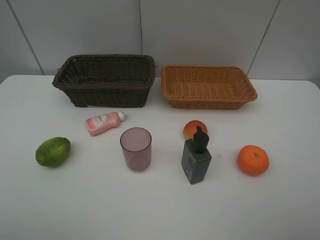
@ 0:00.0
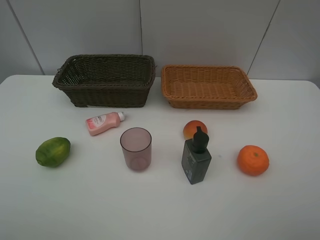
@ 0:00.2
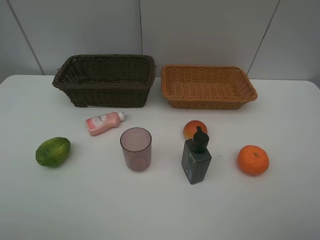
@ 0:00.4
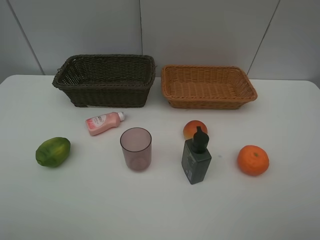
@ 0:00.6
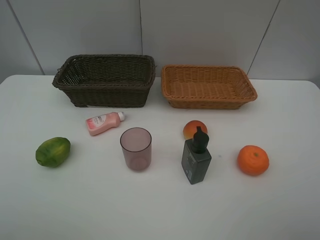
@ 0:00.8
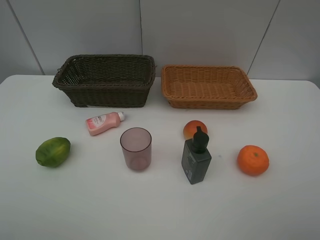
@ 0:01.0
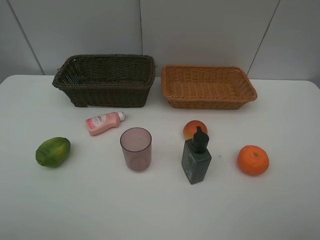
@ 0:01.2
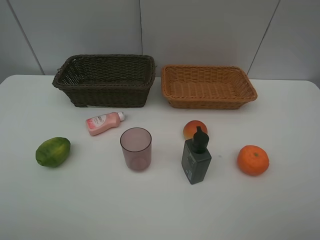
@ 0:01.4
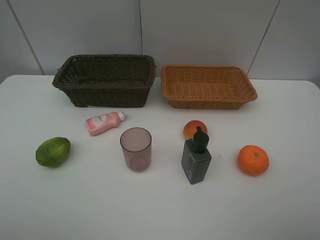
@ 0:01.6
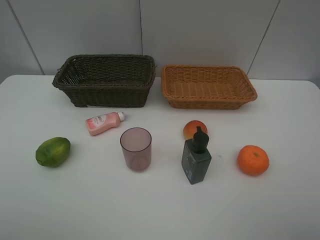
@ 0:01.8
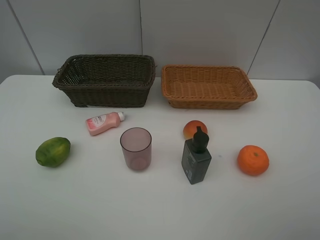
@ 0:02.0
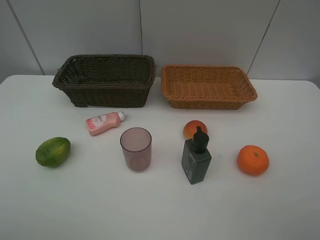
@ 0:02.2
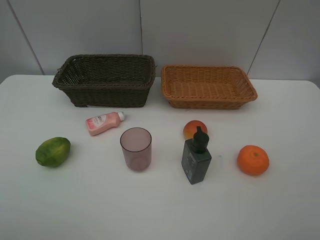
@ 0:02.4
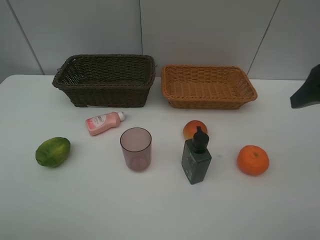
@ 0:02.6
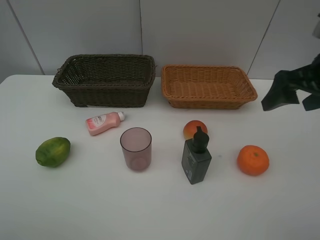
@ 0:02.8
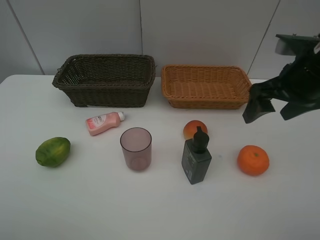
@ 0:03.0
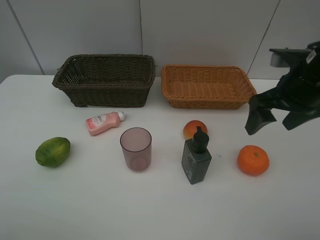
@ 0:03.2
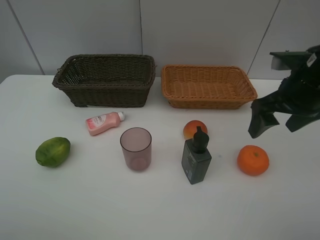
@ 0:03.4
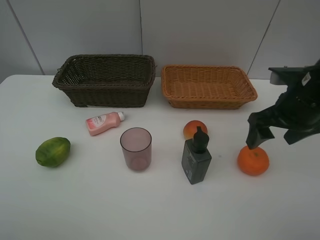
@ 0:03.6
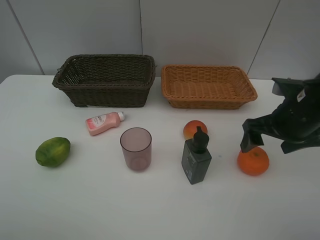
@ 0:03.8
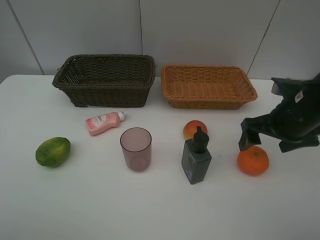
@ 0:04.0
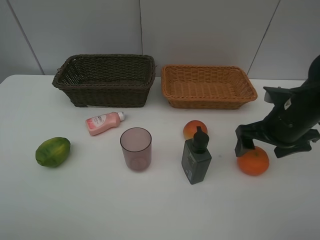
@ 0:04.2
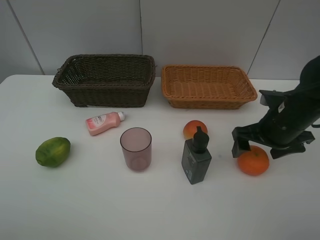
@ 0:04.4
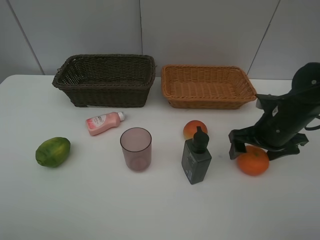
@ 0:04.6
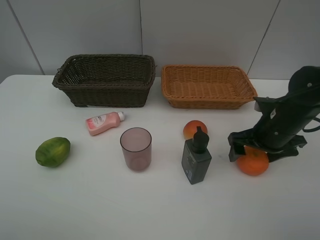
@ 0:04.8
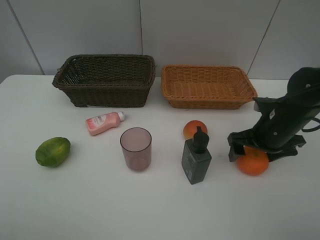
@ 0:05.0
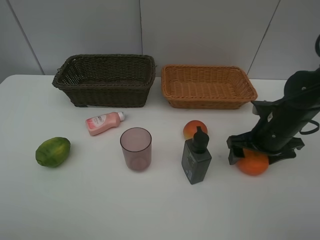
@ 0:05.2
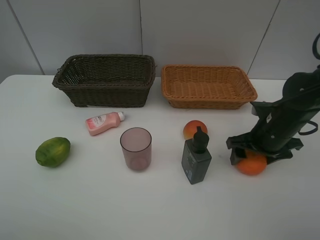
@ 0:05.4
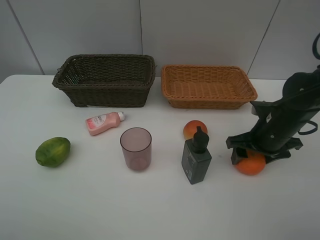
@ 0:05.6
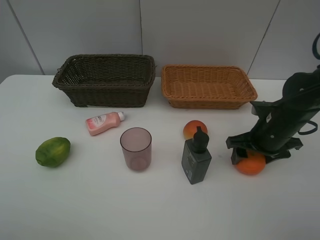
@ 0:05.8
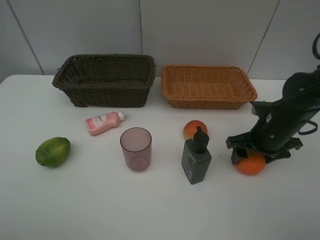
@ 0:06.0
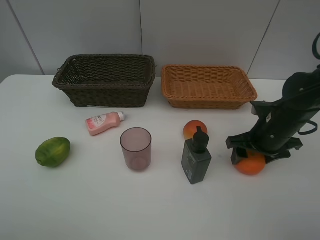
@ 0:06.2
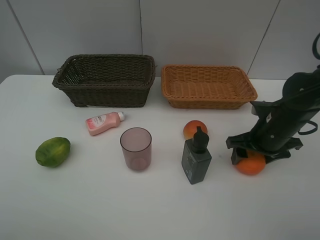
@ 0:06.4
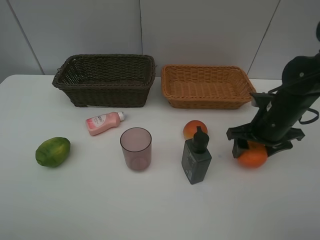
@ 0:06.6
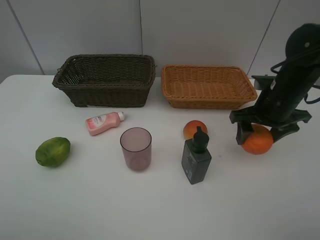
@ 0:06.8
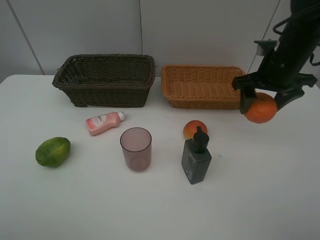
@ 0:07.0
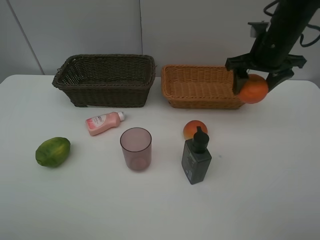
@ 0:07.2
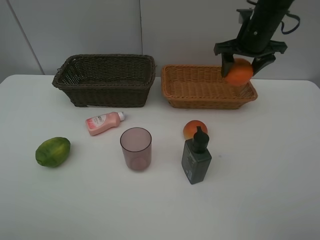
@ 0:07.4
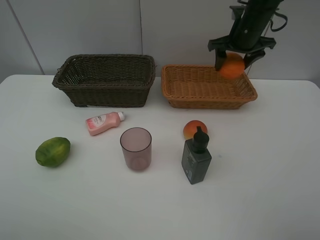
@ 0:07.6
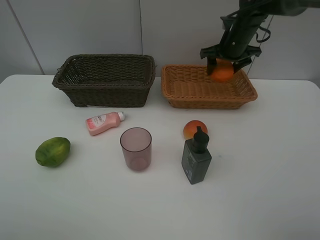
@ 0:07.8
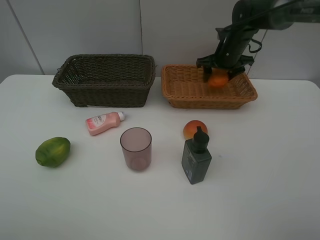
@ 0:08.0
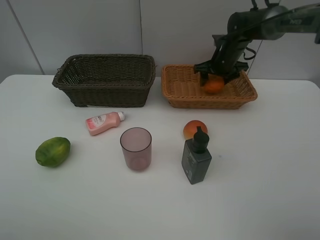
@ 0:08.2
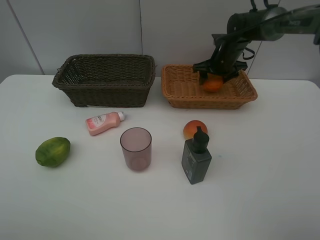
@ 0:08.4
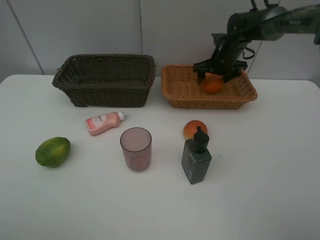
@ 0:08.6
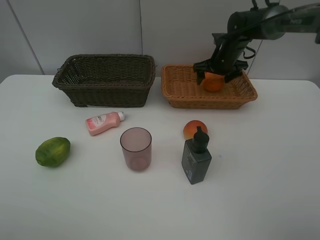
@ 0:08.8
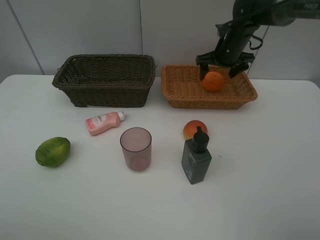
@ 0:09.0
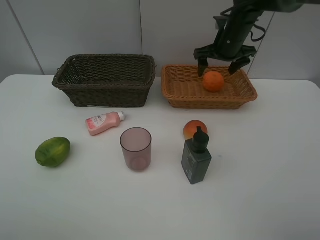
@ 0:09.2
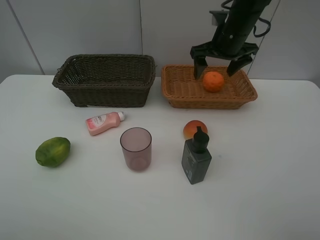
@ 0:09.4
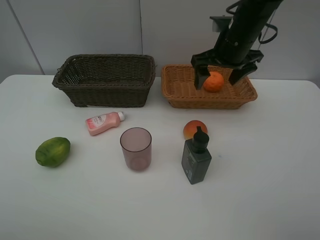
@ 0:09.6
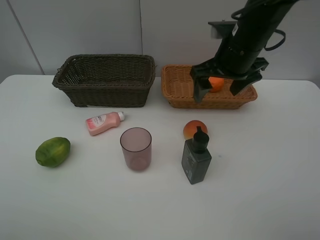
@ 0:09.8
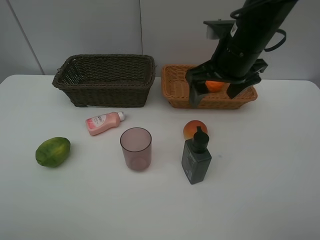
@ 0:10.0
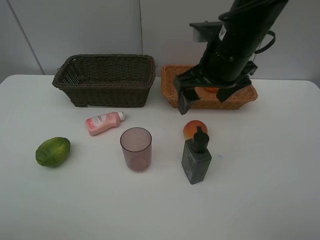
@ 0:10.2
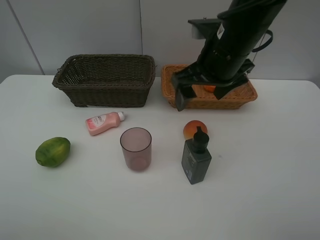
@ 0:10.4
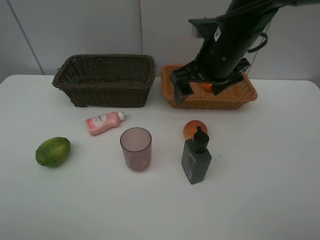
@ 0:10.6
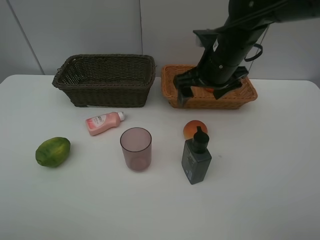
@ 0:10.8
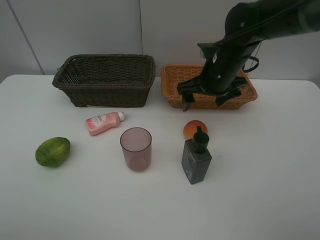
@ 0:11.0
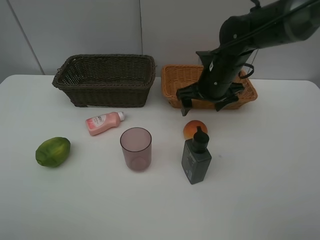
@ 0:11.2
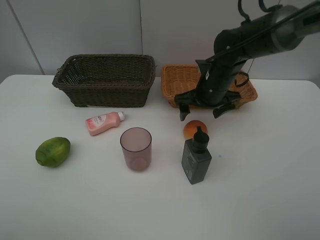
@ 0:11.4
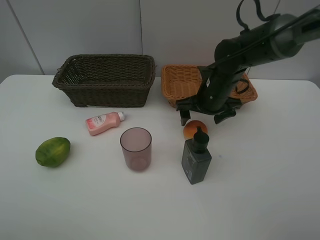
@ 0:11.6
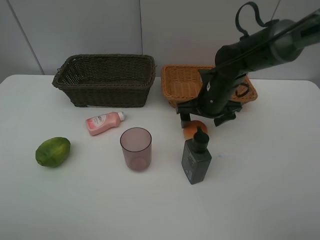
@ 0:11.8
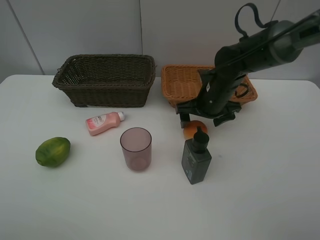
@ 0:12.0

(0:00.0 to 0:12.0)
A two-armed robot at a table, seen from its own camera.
Task of the whole recording: place multiple objects separately in different baskets.
0:00.0 - 0:01.6: The two grippers keep their place.
0:01.6 - 0:03.0: The right gripper travels forward by roughly 25 cm.
0:03.0 - 0:04.4: The right gripper moves downward, approximately 10 cm.
0:04.4 - 0:06.0: The right gripper closes up.
0:06.0 - 0:07.6: The right gripper moves forward and upward, about 25 cm.
0:07.6 - 0:09.0: The right gripper opens.
0:09.0 - 0:10.4: The right gripper moves backward and to the left, approximately 20 cm.
0:10.4 - 0:12.0: The right gripper goes some 15 cm downward and forward.

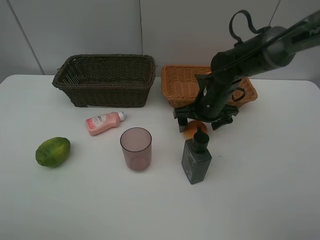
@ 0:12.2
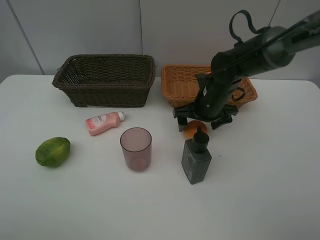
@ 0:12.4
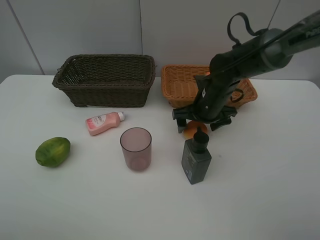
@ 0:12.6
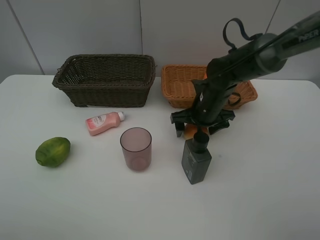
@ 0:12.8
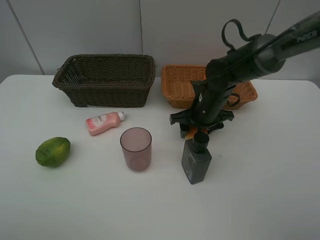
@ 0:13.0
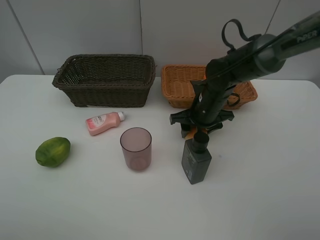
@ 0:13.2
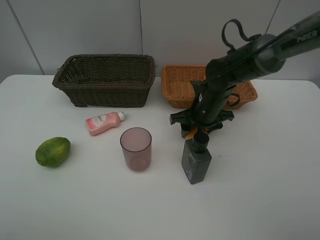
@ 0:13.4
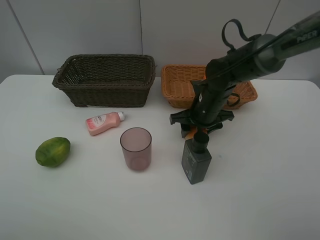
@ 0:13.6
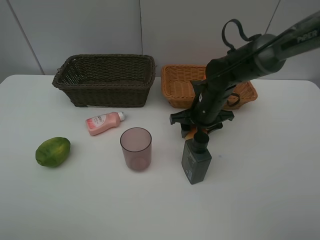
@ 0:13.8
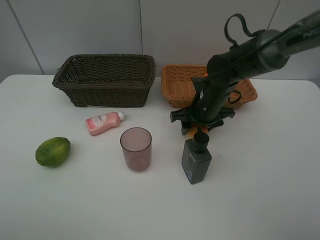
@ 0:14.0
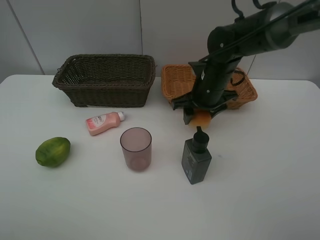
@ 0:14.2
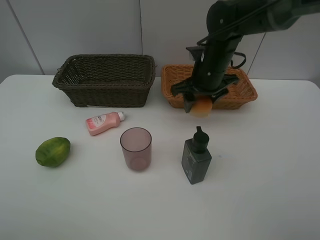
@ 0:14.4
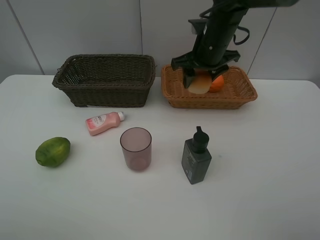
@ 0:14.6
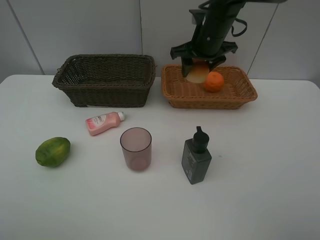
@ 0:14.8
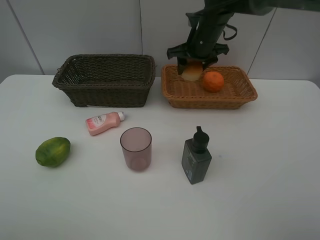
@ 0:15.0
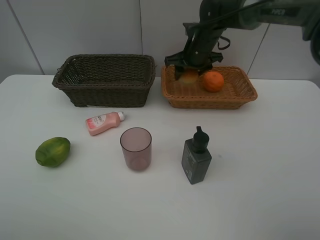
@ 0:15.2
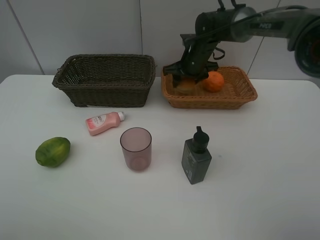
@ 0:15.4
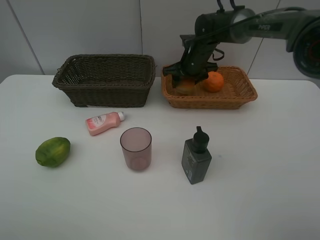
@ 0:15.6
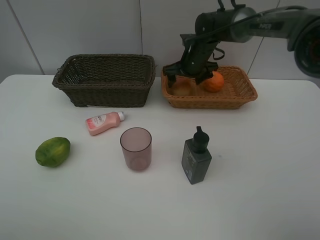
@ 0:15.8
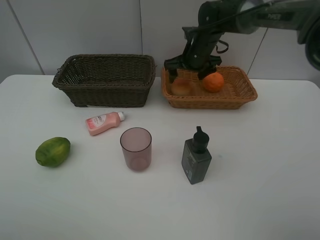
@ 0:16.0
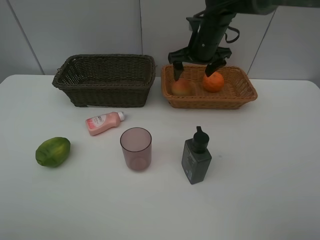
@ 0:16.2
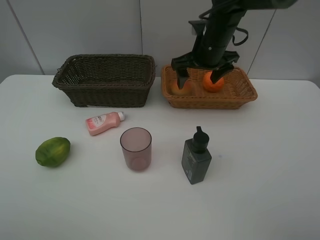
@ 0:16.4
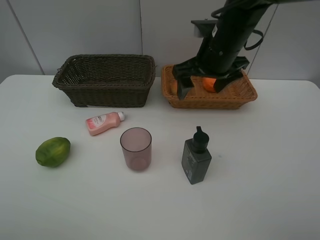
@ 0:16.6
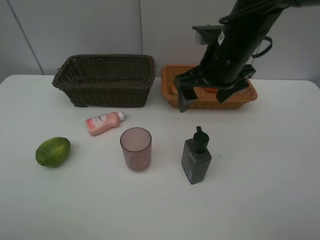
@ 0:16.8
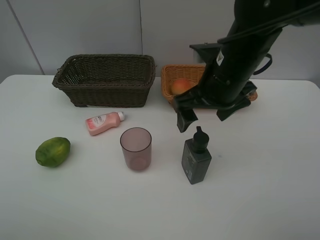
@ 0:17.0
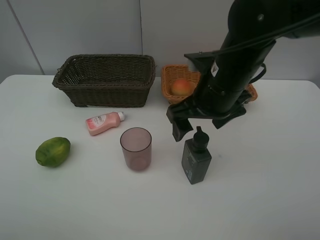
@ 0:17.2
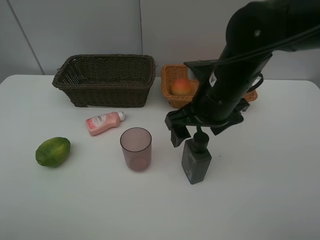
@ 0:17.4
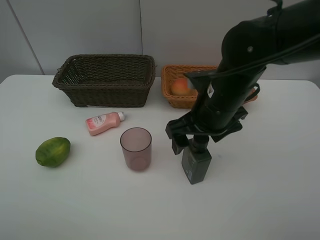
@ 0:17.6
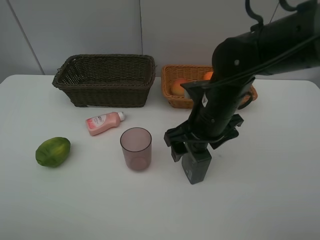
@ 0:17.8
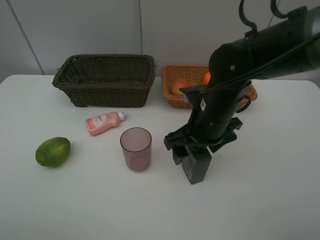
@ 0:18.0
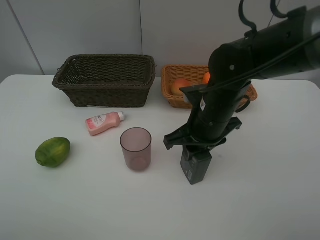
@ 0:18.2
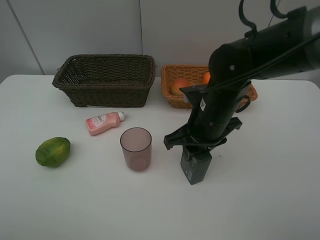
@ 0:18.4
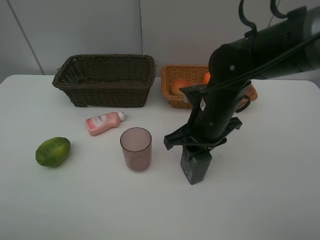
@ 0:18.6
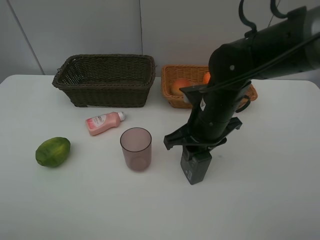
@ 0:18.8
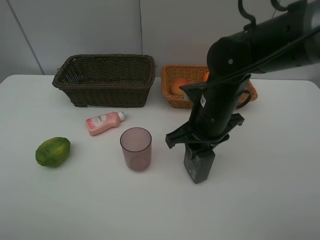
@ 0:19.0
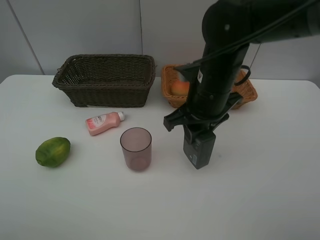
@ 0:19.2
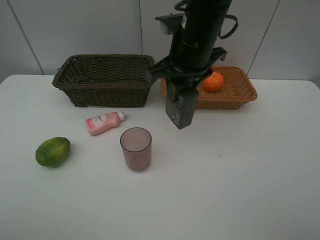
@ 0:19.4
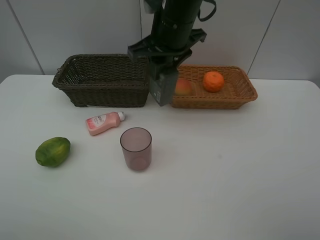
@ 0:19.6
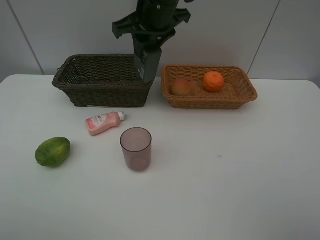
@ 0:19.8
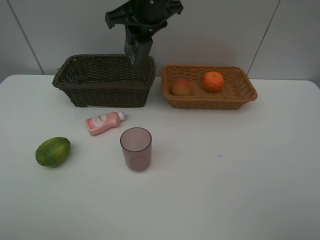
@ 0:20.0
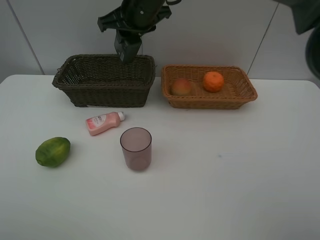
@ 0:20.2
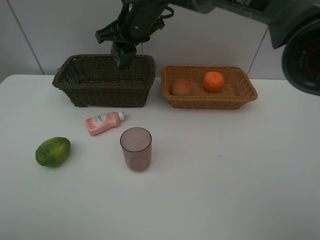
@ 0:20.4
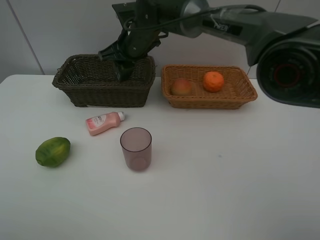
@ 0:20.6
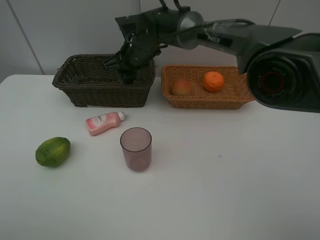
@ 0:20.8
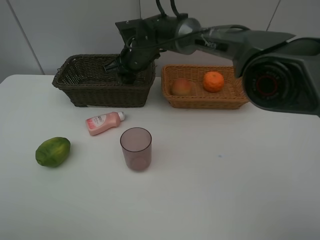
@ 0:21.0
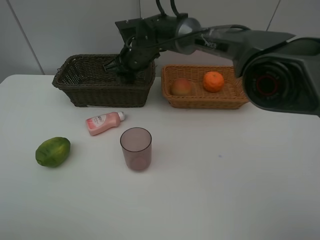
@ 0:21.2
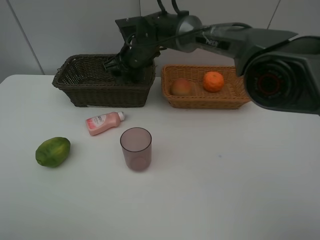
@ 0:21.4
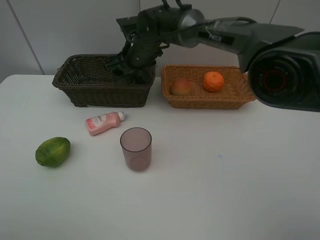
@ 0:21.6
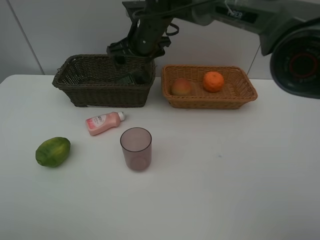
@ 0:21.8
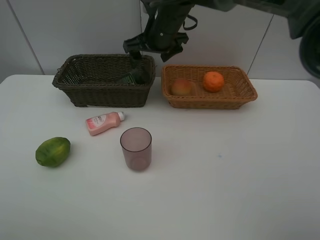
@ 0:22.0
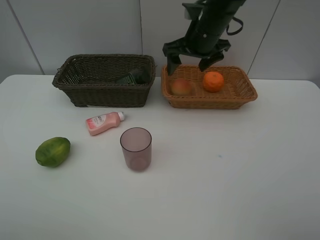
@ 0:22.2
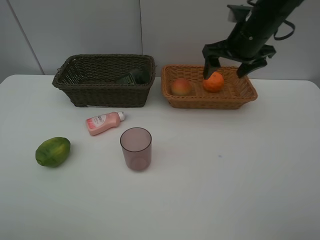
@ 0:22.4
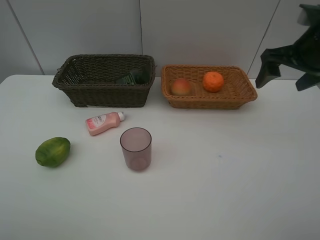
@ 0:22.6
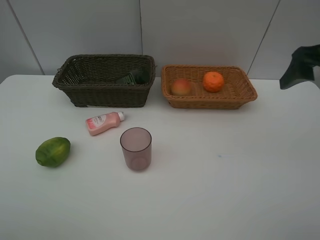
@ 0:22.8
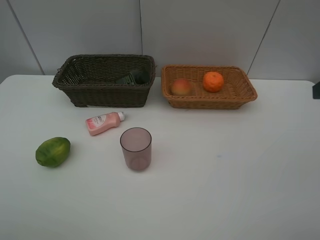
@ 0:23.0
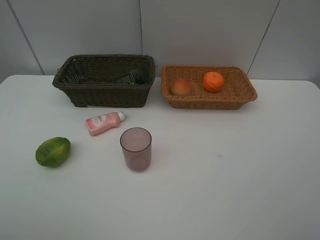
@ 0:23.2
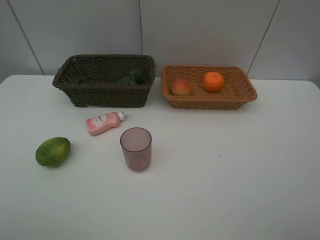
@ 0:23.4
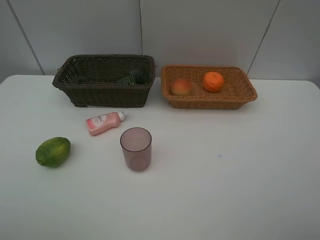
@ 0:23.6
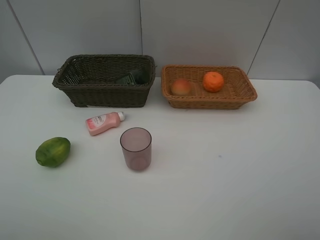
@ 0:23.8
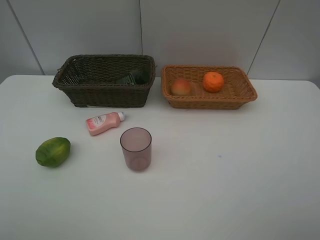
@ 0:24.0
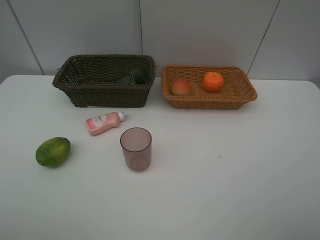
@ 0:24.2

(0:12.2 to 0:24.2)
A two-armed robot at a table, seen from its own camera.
Task of the whole recording: place multiple objects separately in different baskets.
0:12.2 - 0:13.8: The right gripper closes its fingers.
0:13.8 - 0:15.2: The right gripper travels forward and upward by roughly 15 cm.
0:15.2 - 0:16.6: The right gripper shifts approximately 15 cm backward and upward, and opens up.
0:16.6 - 0:18.2: The right gripper heads downward and backward, covering roughly 10 cm, and closes up.
0:18.2 - 0:19.8: The right gripper shifts approximately 20 cm upward, forward and to the left.
0:19.8 - 0:21.2: The right gripper shifts some 15 cm downward and forward.
0:21.2 - 0:22.6: The right gripper moves to the right and backward, roughly 35 cm, and opens.
0:22.6 - 0:24.2: The right gripper shifts approximately 30 cm backward.
